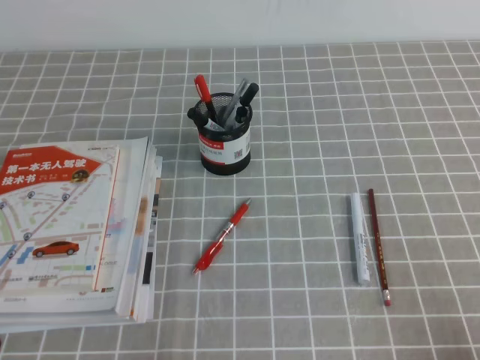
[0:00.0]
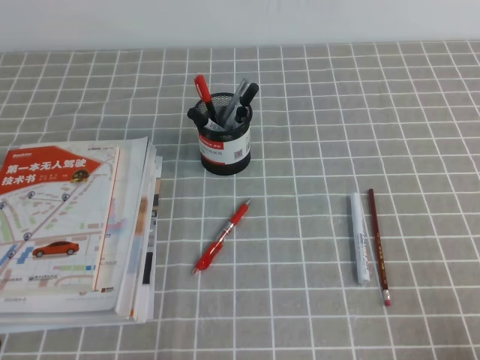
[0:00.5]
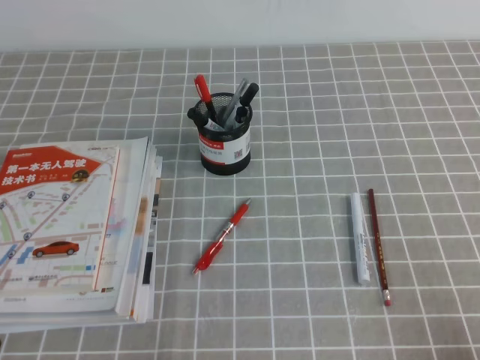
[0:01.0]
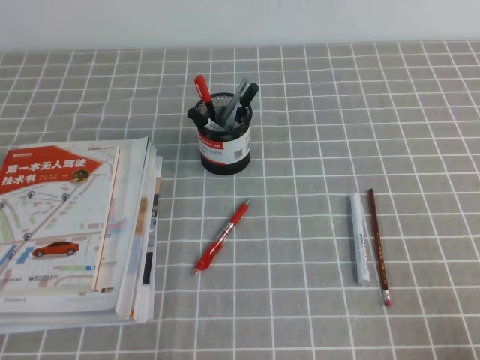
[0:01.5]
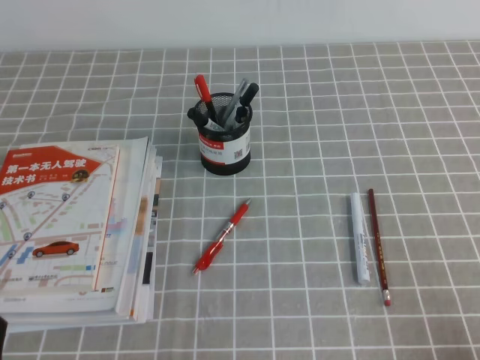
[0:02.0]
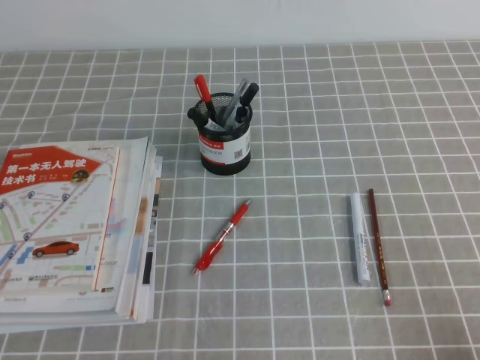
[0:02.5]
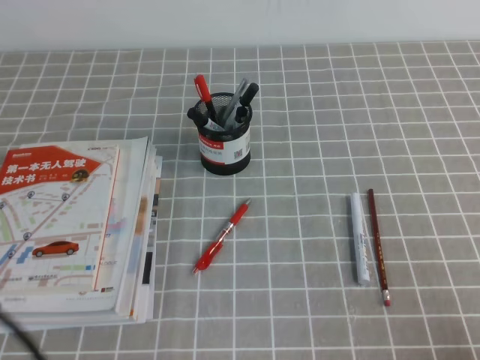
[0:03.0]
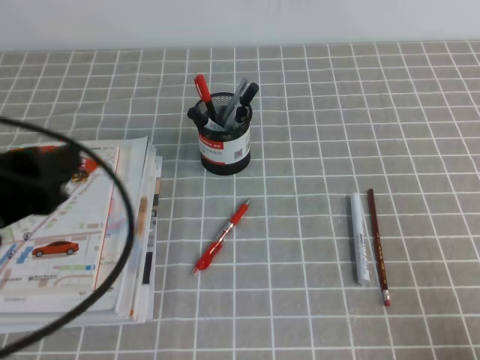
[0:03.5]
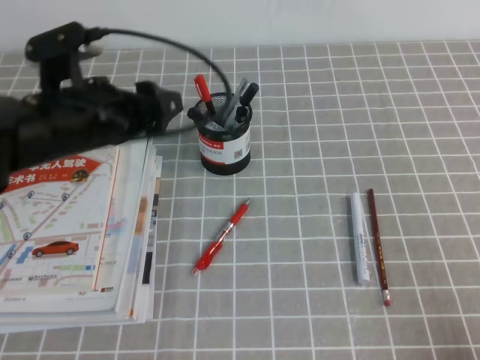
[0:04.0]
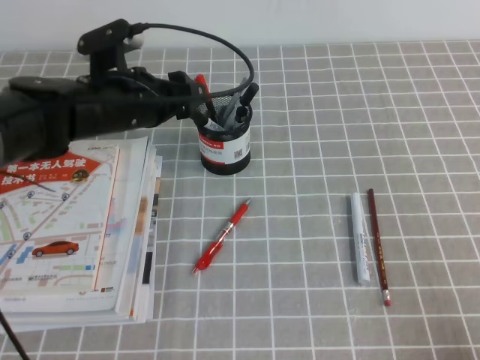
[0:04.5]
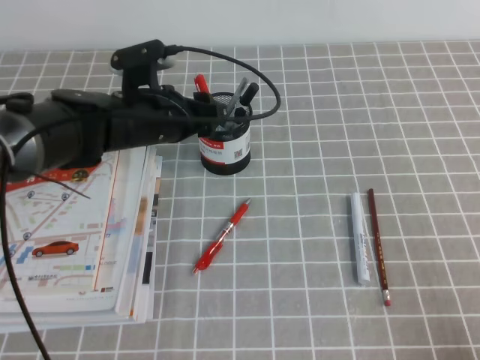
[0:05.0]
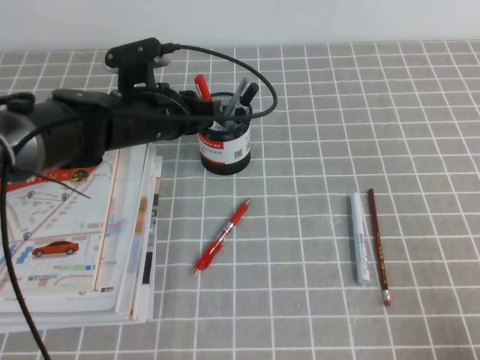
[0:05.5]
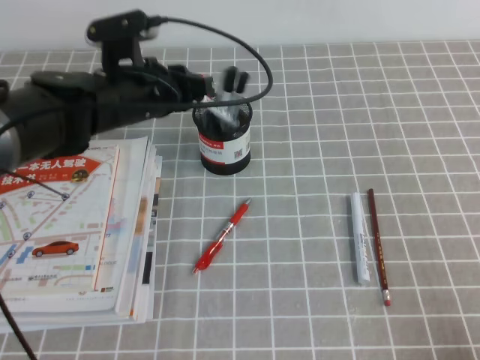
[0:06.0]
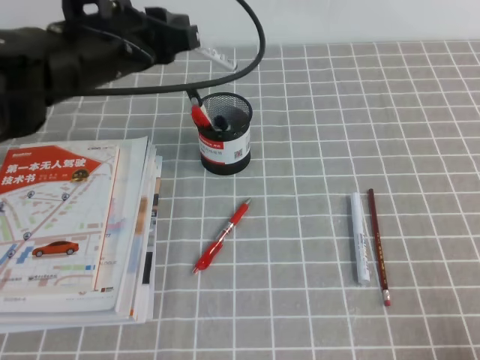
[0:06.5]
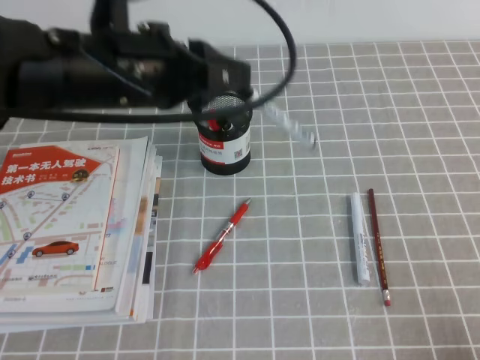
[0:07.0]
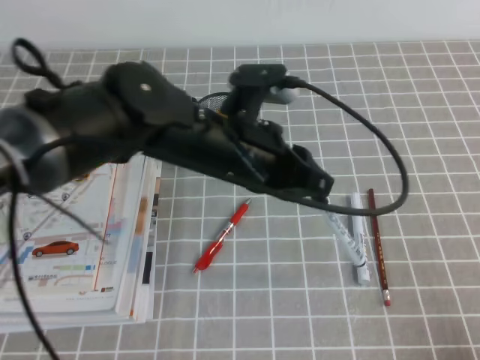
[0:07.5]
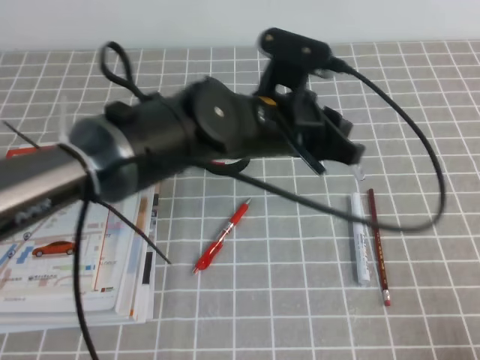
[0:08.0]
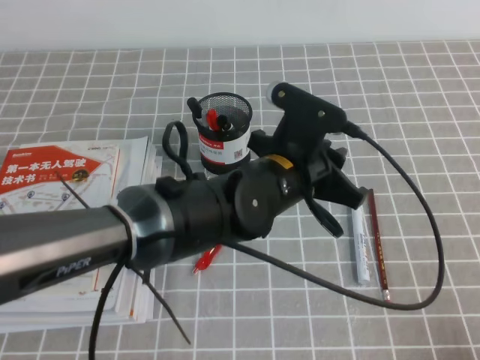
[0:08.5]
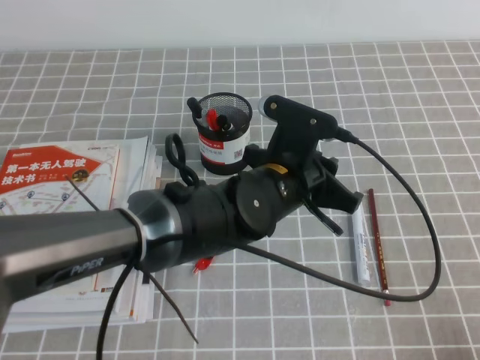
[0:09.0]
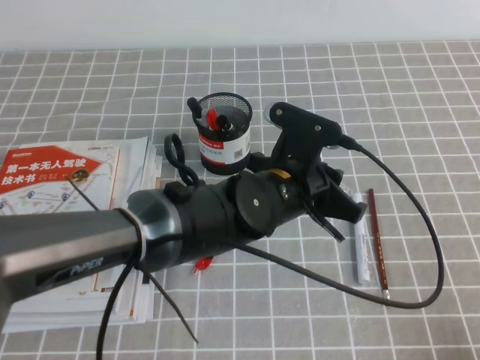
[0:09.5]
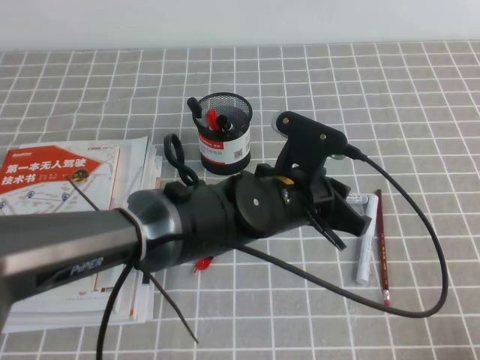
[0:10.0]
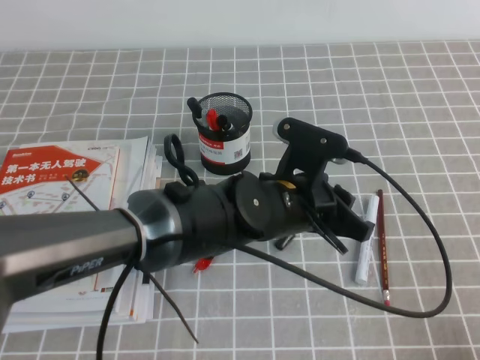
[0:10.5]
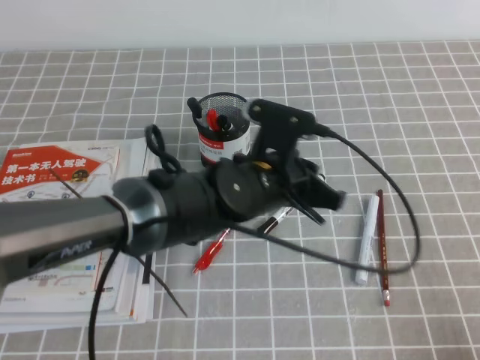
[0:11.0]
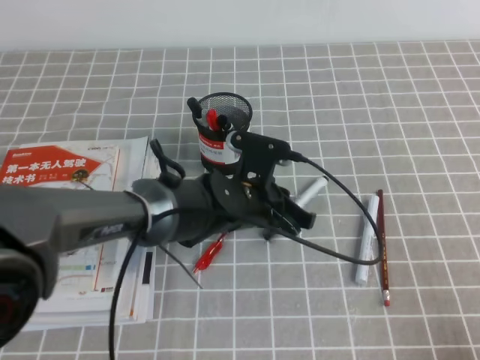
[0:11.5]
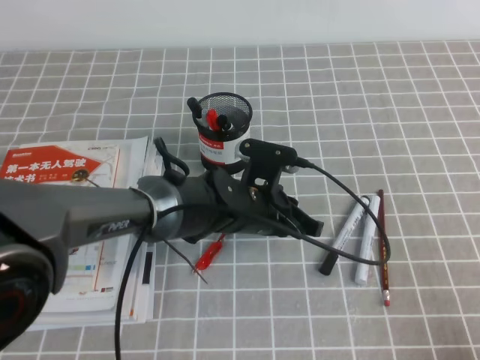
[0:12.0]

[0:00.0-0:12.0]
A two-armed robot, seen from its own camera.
0:02.0 to 0:04.0: The left gripper goes approximately 30 cm forward, upward and to the right, and opens.
0:04.0 to 0:06.0: The left gripper travels forward and to the right by roughly 10 cm, and closes up.
0:06.0 to 0:08.0: The left gripper moves to the right and backward, some 15 cm.
0:08.0 to 0:10.0: The left gripper shifts some 5 cm downward.
0:10.0 to 0:12.0: The left gripper shifts roughly 5 cm downward.

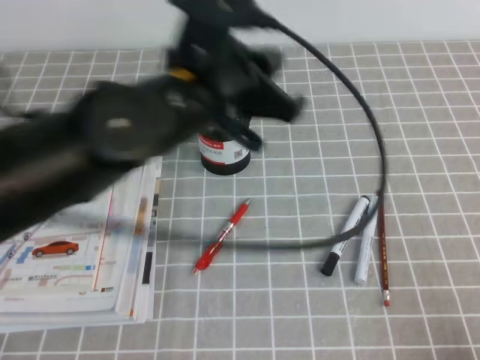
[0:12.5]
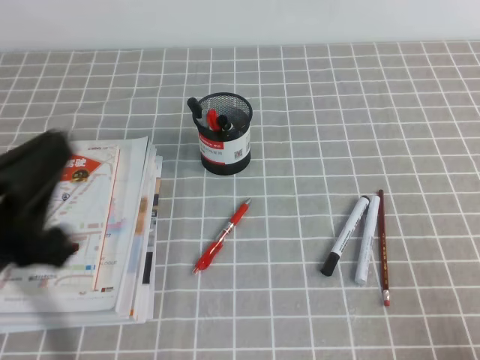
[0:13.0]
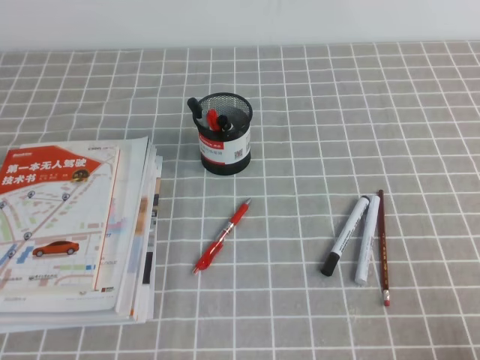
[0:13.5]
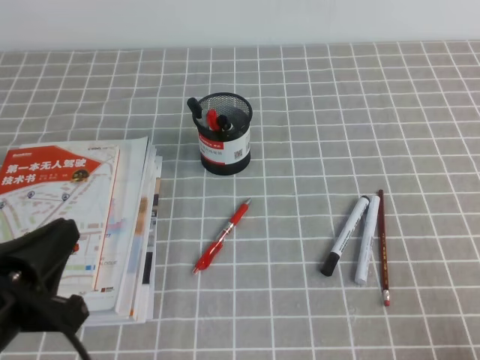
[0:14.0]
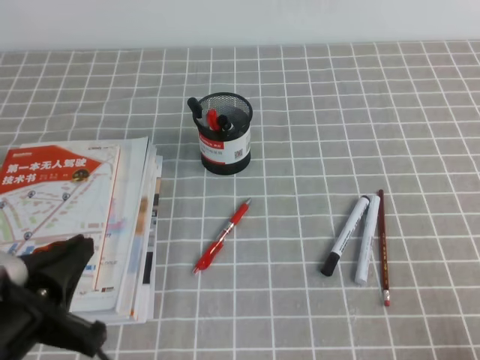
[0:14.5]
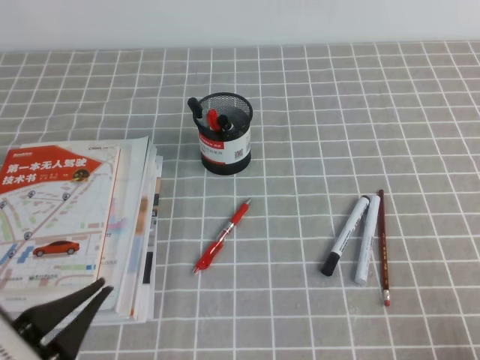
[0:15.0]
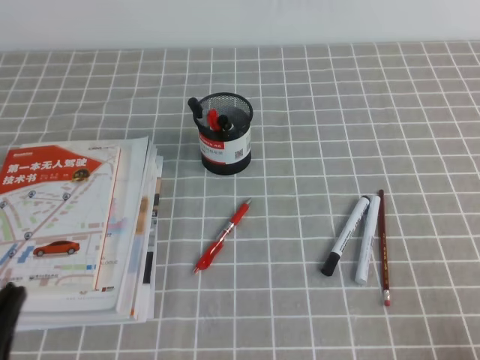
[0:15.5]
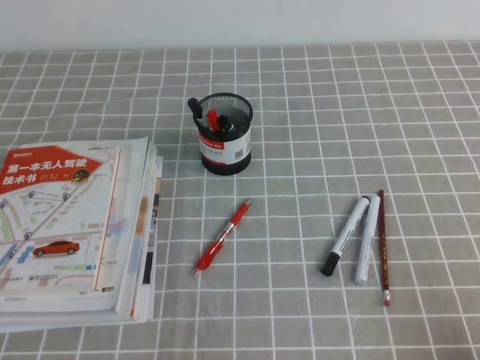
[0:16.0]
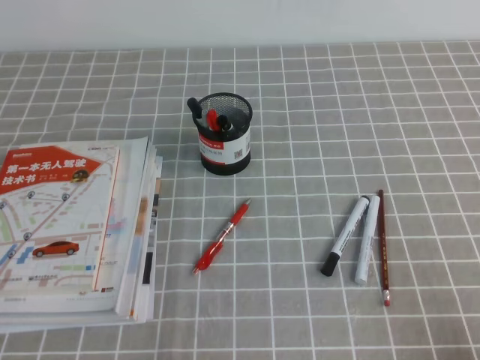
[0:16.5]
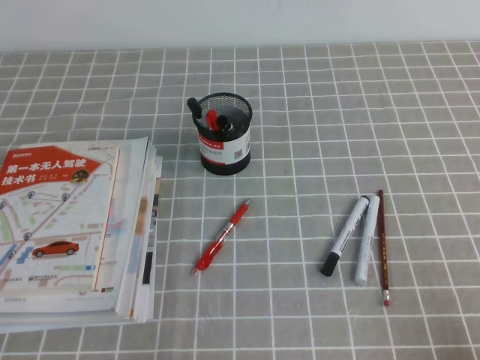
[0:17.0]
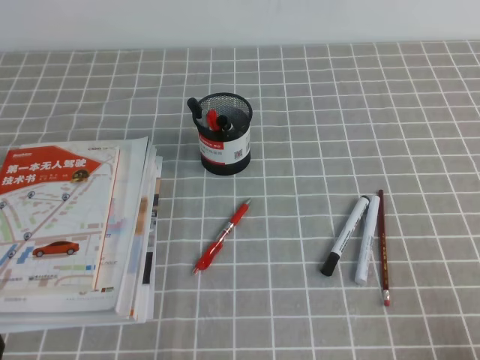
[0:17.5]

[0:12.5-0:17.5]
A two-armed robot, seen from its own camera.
Step, 0:12.5 to 0:17.5: Pick up the pen from the pen holder.
0:12.5 to 0:15.0: The left gripper heads backward, to the left and downward, covering approximately 25 cm.
0:15.0 to 0:17.5: The left gripper goes roughly 10 cm downward and to the left.

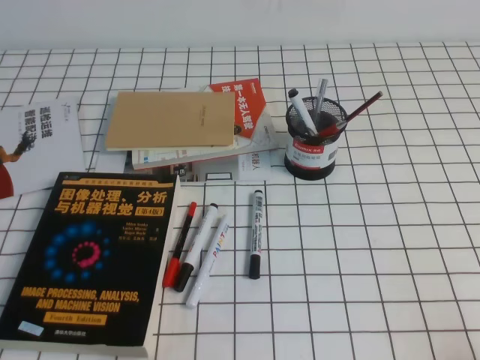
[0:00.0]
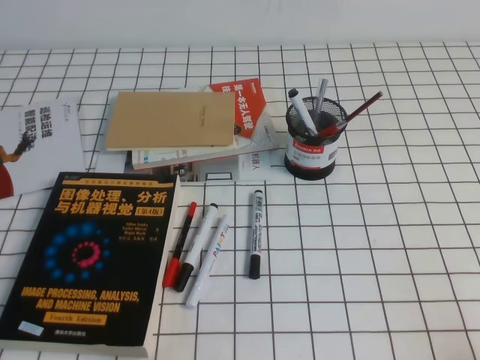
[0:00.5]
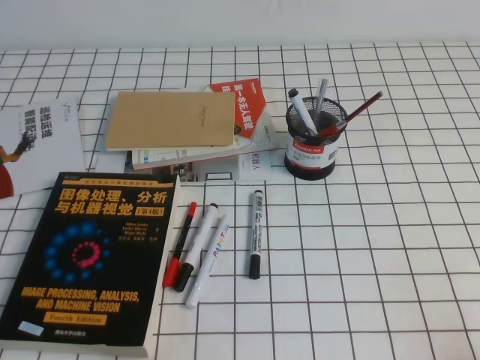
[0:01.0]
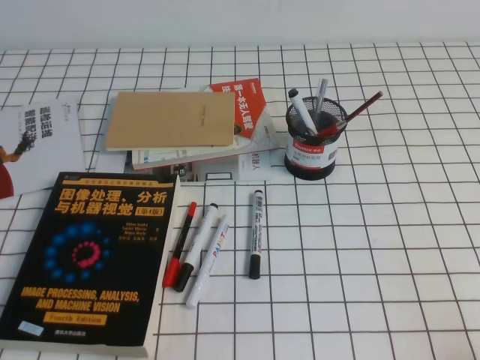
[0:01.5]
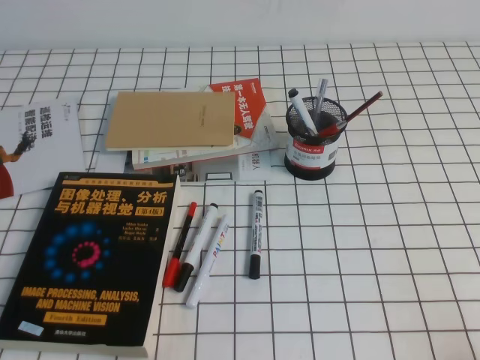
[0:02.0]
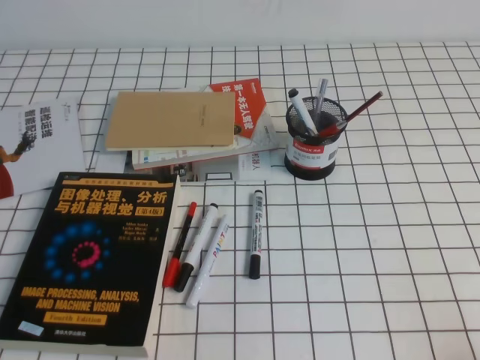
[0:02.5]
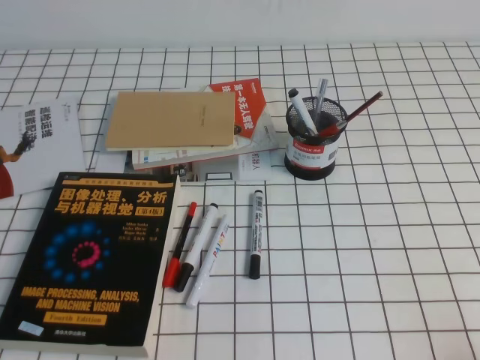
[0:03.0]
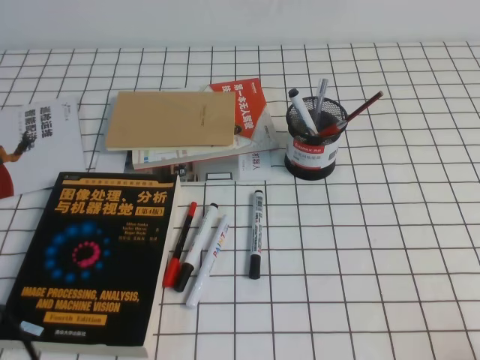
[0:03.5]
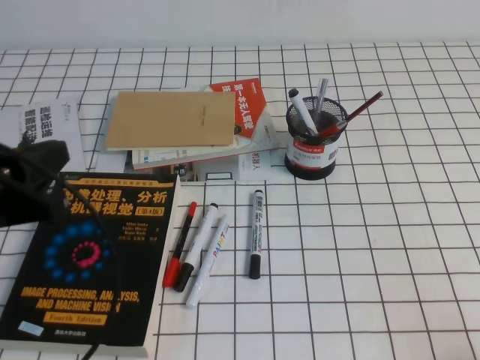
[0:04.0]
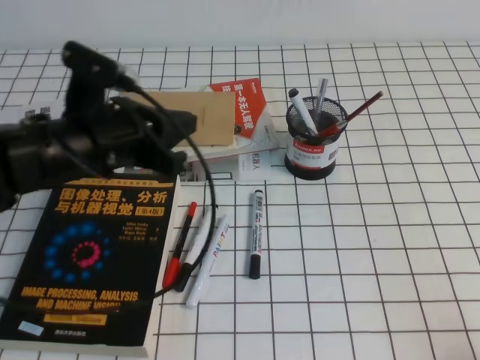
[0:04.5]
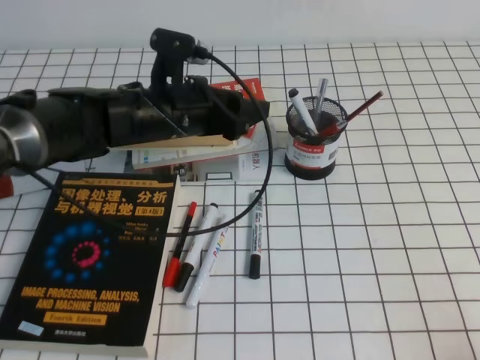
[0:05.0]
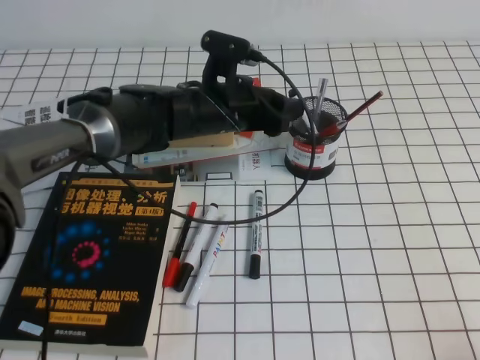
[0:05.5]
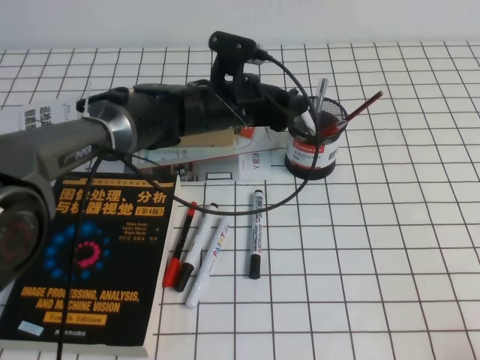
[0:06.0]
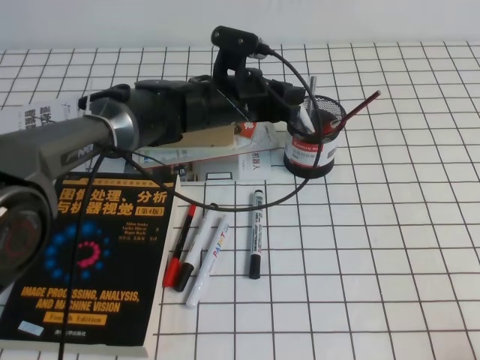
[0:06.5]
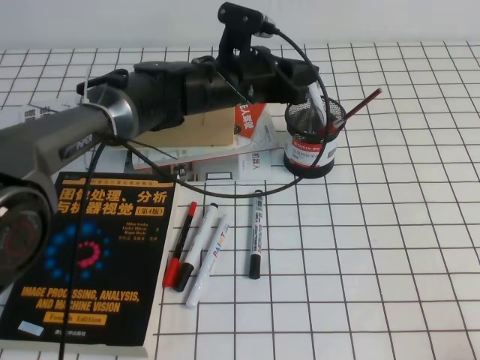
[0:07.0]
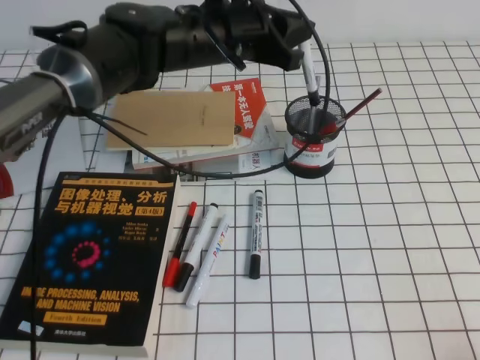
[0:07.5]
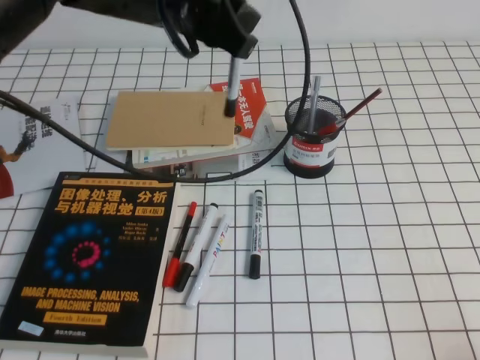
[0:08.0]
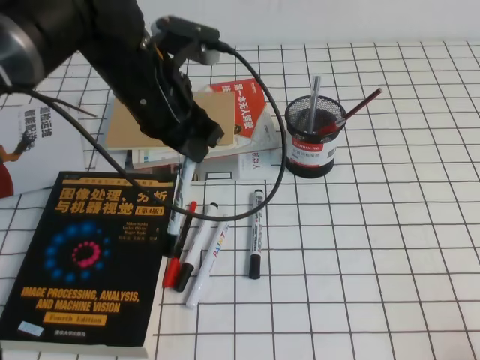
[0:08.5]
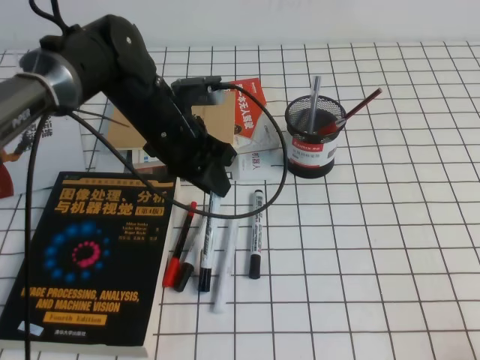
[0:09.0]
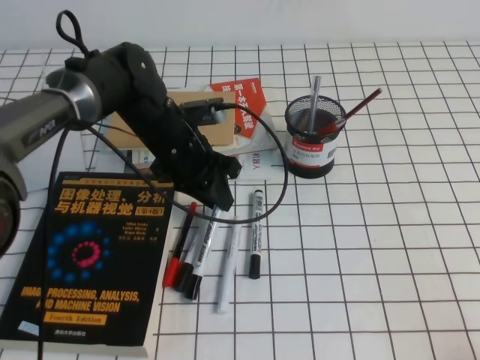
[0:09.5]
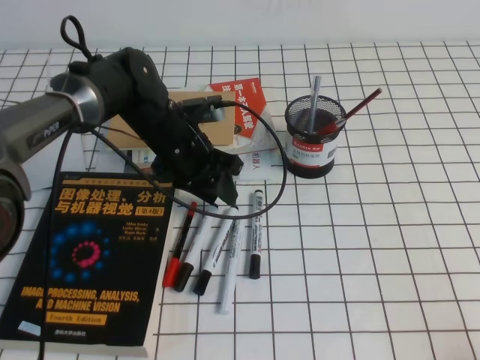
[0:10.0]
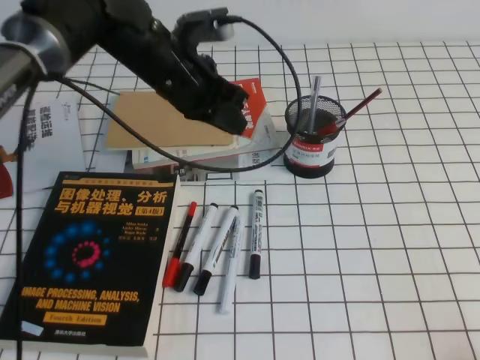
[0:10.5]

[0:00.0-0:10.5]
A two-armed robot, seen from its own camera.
0:02.0 to 0:04.0: The left gripper heads upward and forward, covering roughly 20 cm.
0:04.0 to 0:06.5: The left gripper travels forward and to the right by roughly 35 cm, and opens.
0:06.5 to 0:08.5: The left gripper moves upward, backward and to the left, some 15 cm.
0:08.5 to 0:10.5: The left gripper goes downward and returns, some 15 cm each way.
